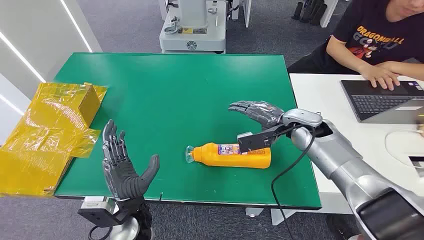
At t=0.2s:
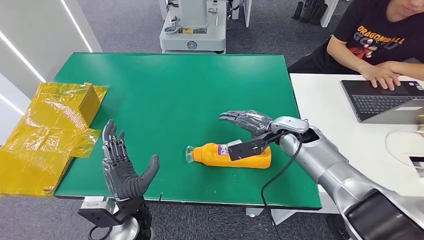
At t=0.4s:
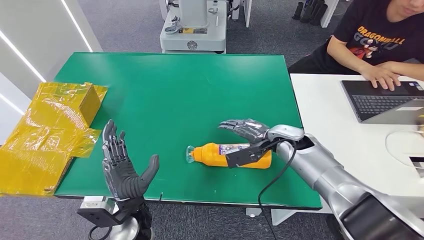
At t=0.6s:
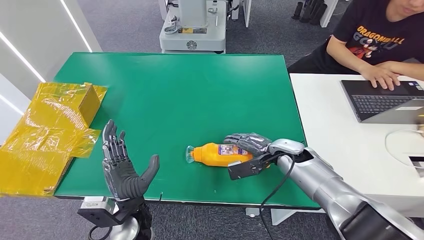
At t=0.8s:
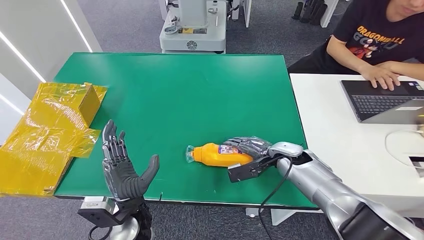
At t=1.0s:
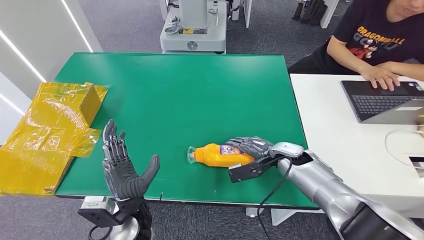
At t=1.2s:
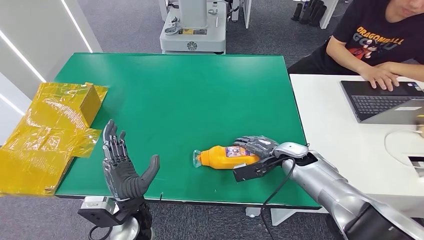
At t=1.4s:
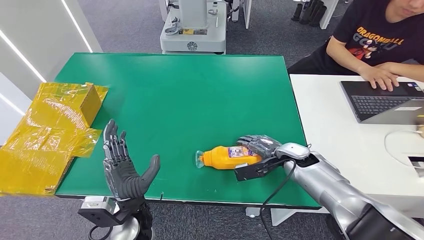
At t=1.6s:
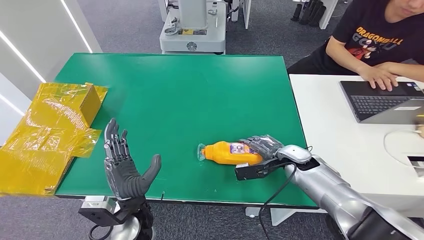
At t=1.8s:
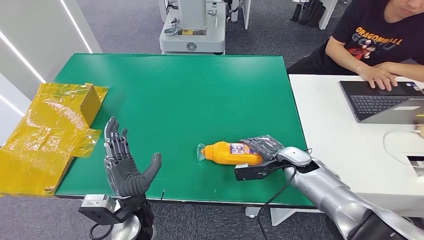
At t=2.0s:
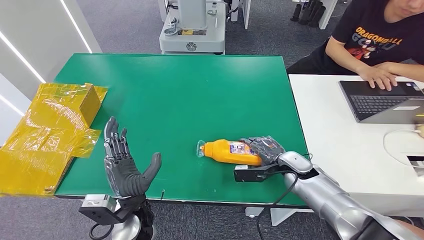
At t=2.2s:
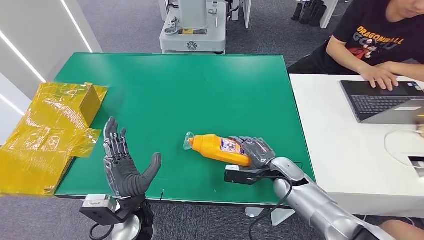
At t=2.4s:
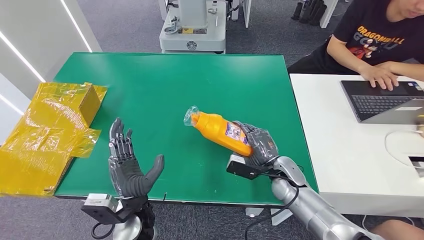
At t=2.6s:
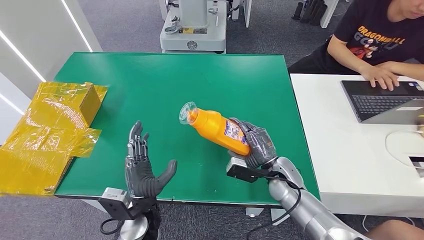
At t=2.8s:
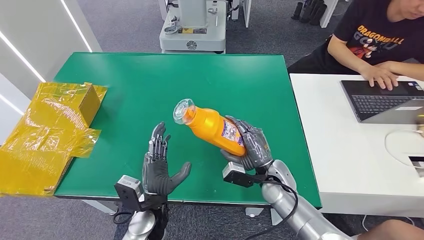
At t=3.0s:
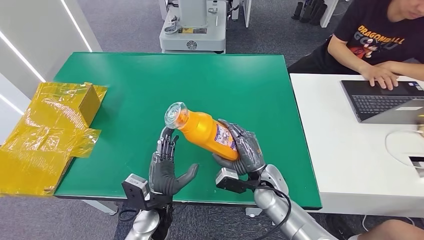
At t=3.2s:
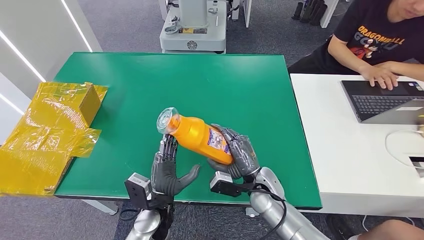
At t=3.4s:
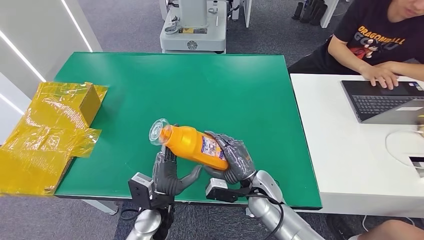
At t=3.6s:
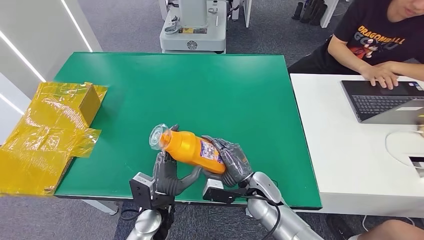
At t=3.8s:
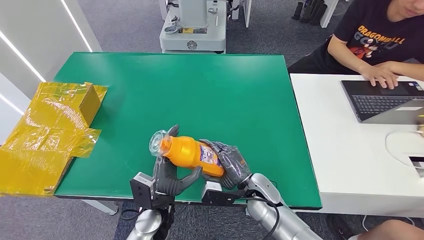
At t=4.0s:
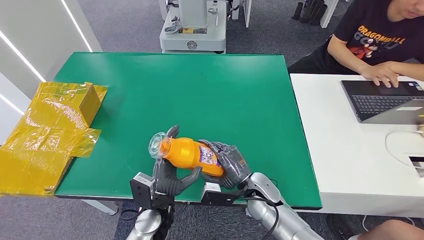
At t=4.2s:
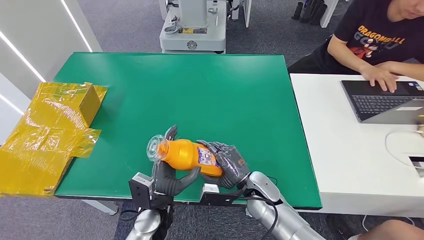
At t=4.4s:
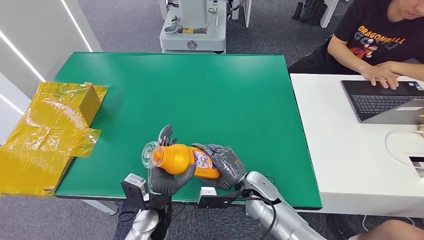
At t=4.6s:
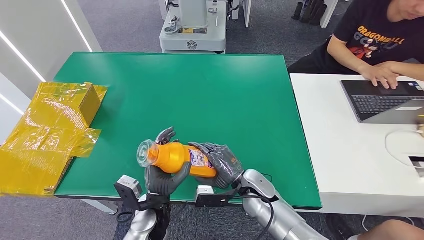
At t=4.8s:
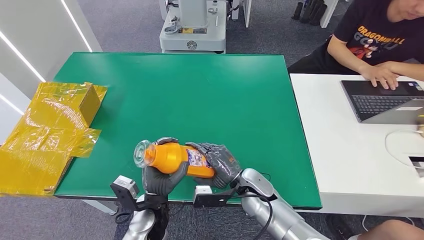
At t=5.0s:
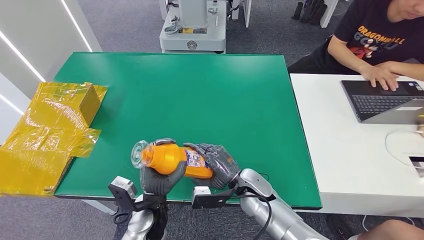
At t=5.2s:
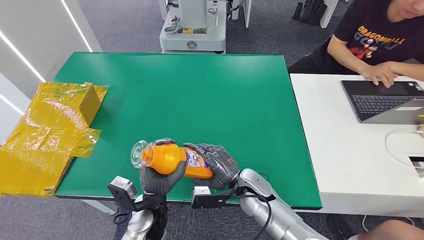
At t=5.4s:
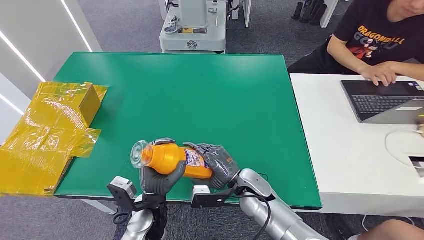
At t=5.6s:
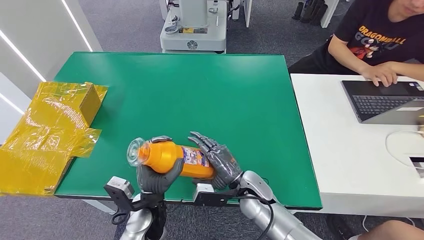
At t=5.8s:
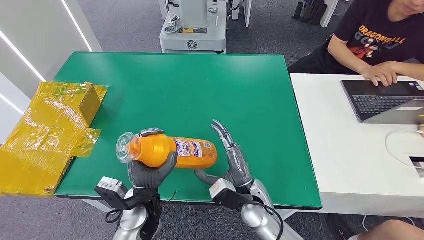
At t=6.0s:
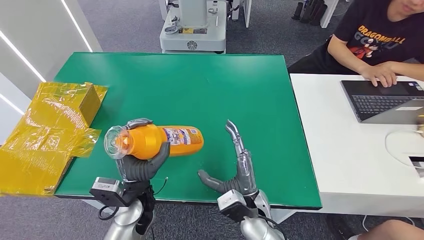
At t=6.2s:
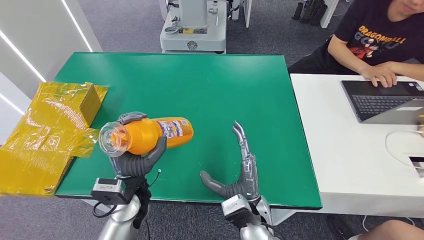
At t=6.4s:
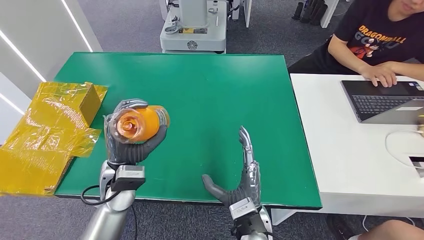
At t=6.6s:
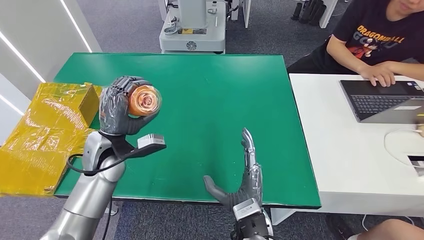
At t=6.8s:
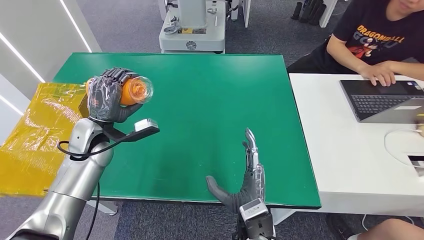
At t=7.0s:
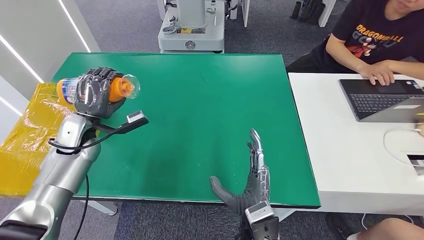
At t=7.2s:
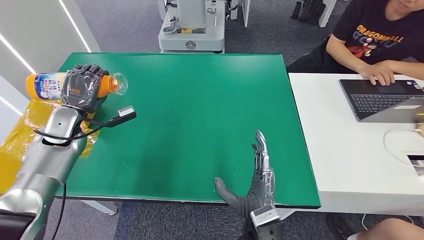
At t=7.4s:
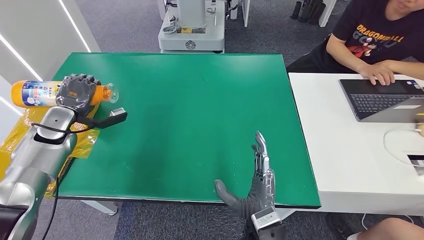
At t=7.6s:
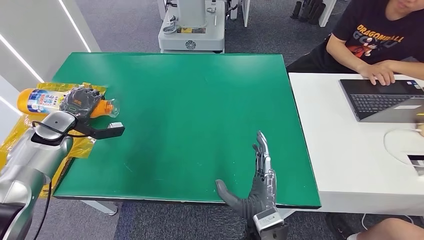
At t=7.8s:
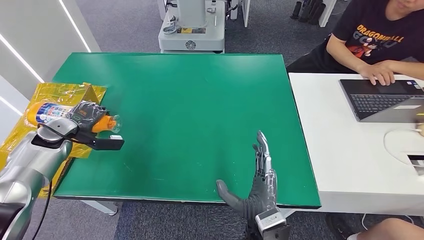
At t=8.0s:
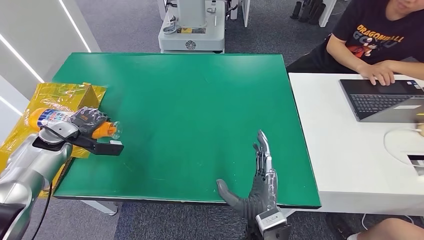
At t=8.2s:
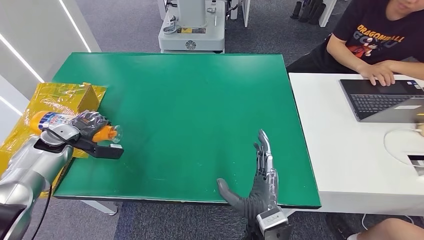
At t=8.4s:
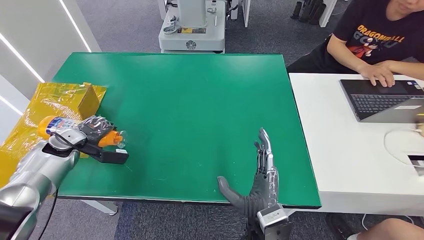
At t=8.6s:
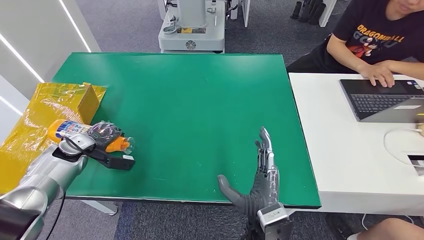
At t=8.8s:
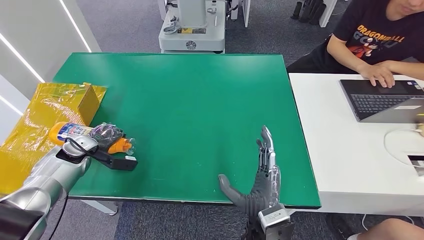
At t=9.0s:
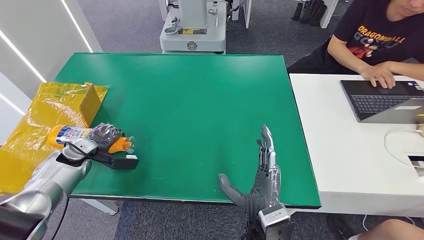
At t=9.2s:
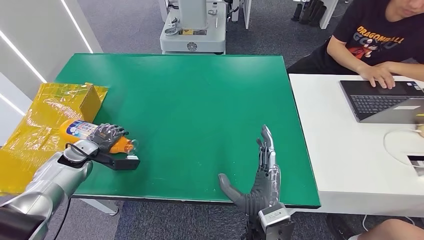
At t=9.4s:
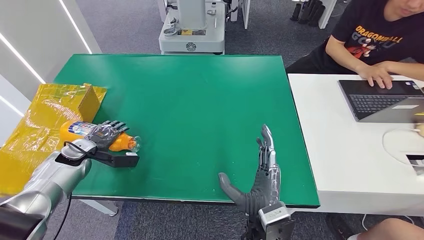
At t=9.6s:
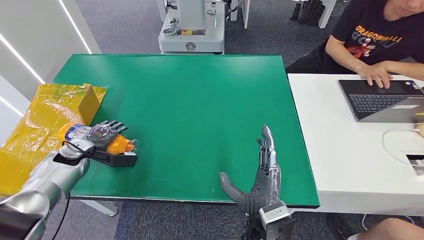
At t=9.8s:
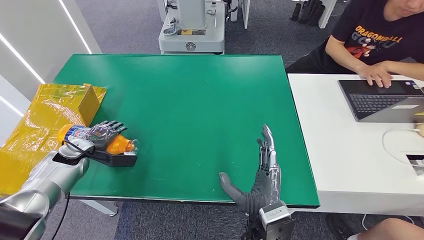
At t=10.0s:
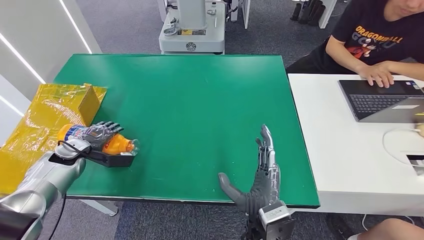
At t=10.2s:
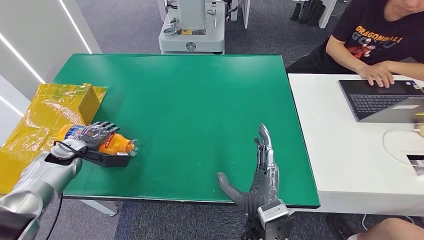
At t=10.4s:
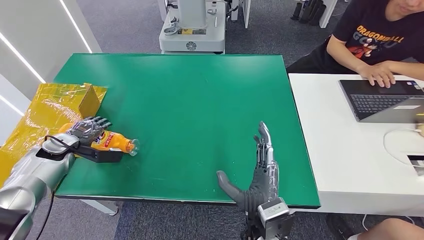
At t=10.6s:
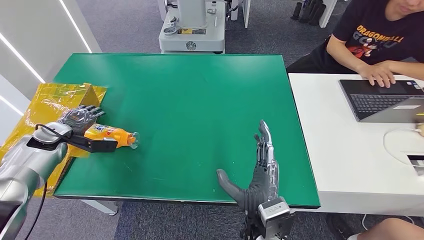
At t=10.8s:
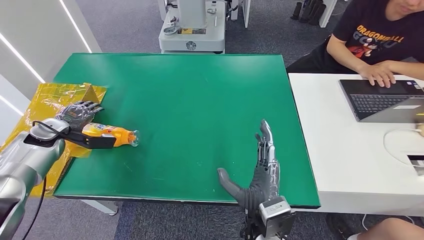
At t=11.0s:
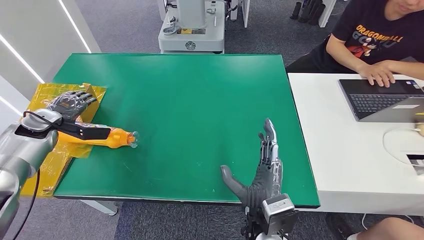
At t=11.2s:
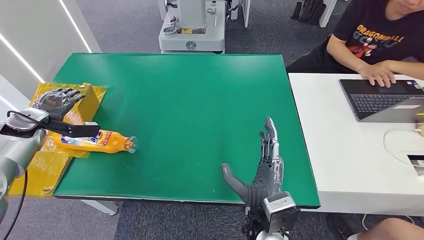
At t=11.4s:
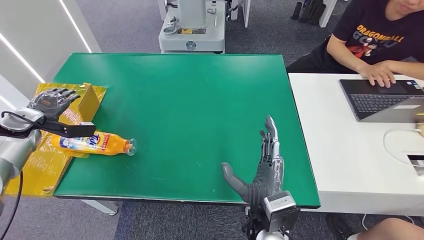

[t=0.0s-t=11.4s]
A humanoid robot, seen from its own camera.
Step, t=0.0s to t=3.2s: Pick up the bottle from the table.
Step, t=3.4s to t=11.4s: Turn the bottle to the front side.
t=1.4s to t=2.8s: The right hand heads to the left and backward, covering roughly 10 cm.
t=2.8s to t=4.2s: The right hand goes approximately 5 cm to the left.
t=4.2s to t=5.6s: There are only small adjustments of the hands.
t=7.2s to t=8.6s: The left hand is displaced downward by some 10 cm.
t=8.6s to t=10.0s: There are only small adjustments of the hands.
t=10.0s to t=11.4s: The left hand travels upward and to the left by roughly 15 cm.

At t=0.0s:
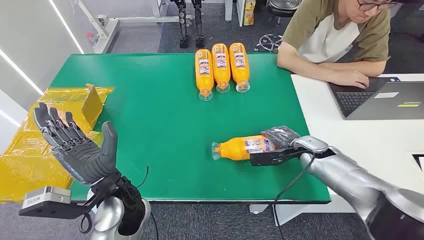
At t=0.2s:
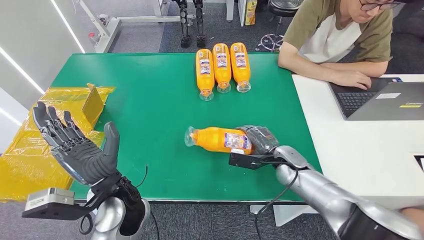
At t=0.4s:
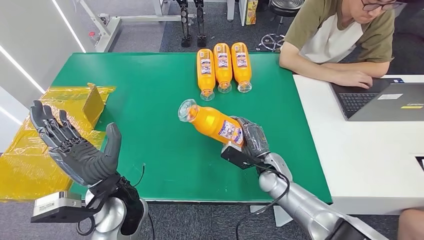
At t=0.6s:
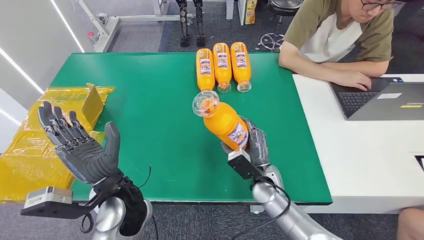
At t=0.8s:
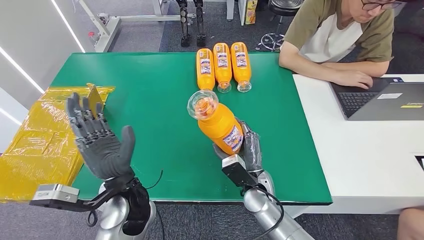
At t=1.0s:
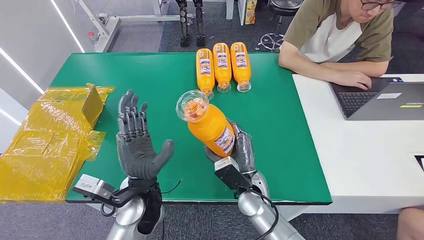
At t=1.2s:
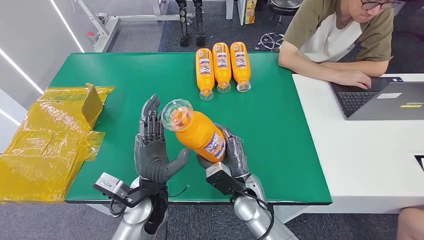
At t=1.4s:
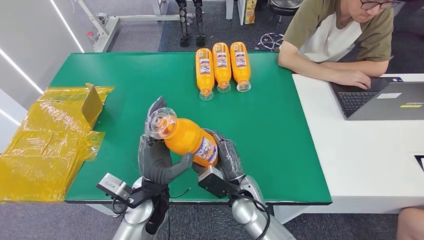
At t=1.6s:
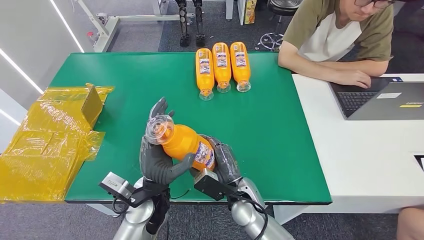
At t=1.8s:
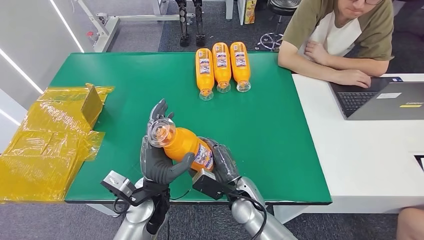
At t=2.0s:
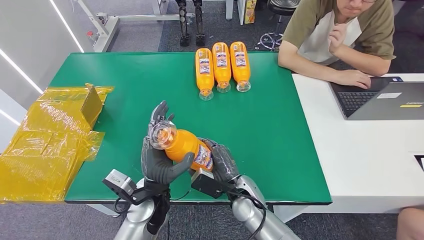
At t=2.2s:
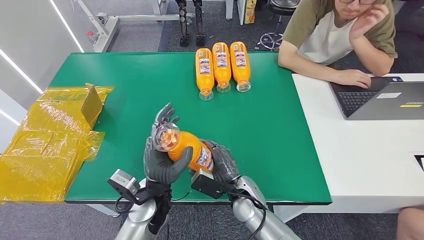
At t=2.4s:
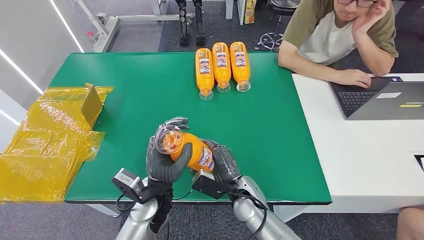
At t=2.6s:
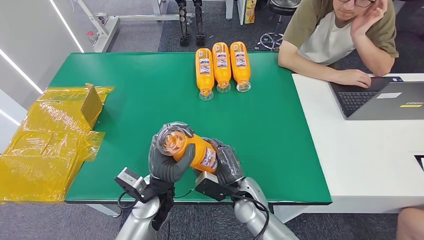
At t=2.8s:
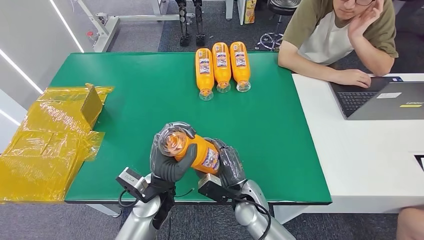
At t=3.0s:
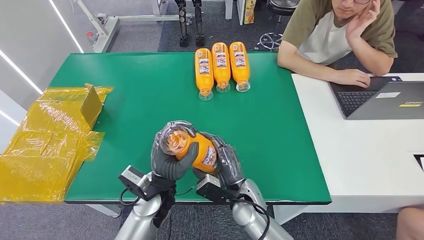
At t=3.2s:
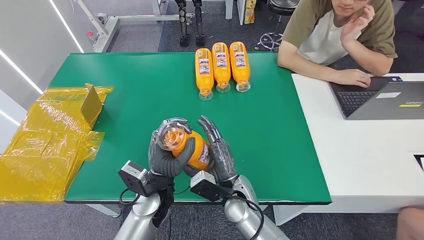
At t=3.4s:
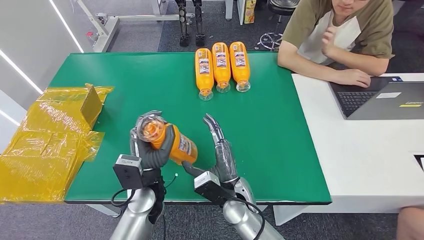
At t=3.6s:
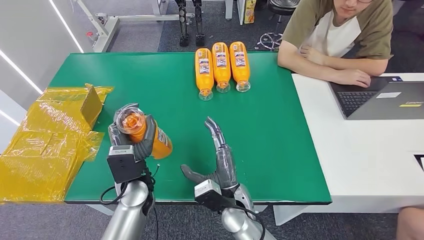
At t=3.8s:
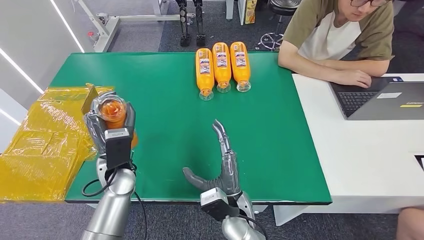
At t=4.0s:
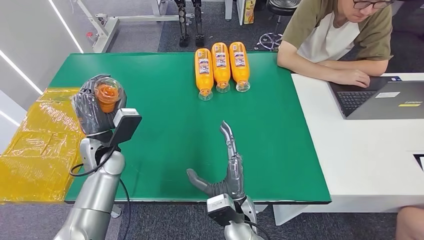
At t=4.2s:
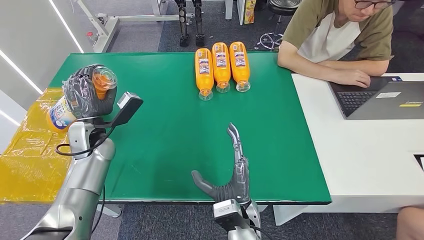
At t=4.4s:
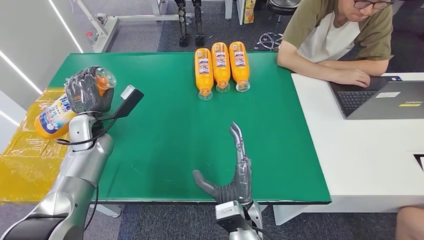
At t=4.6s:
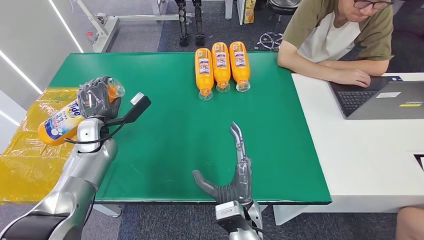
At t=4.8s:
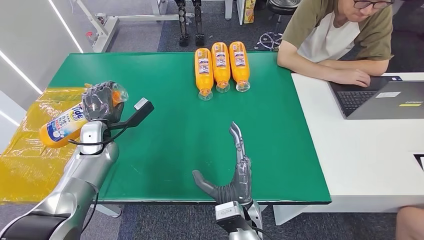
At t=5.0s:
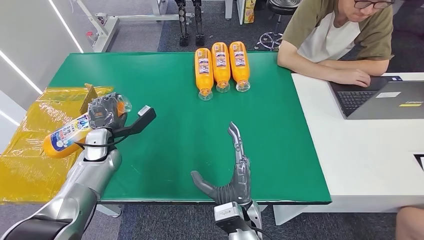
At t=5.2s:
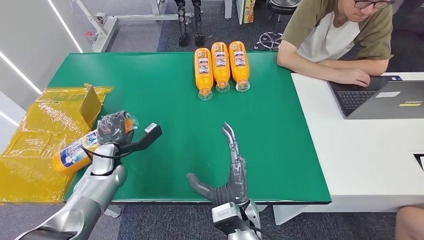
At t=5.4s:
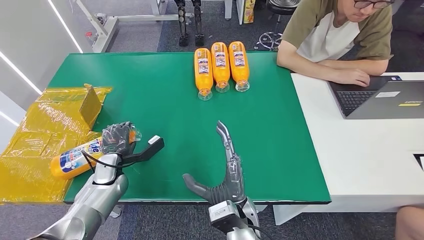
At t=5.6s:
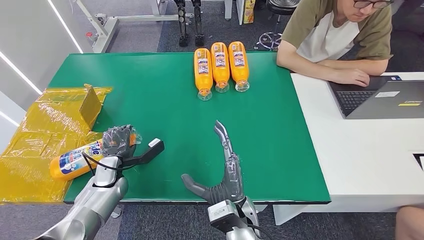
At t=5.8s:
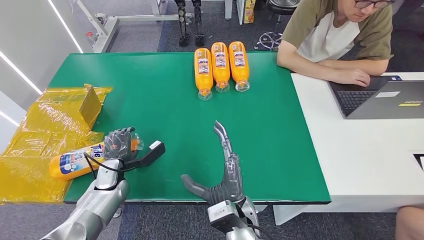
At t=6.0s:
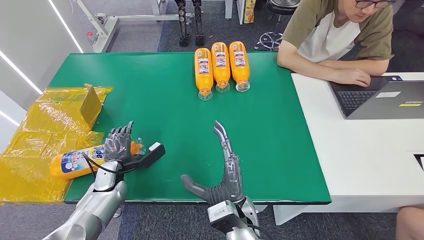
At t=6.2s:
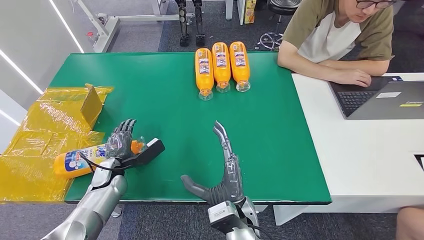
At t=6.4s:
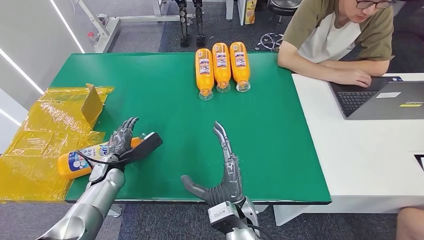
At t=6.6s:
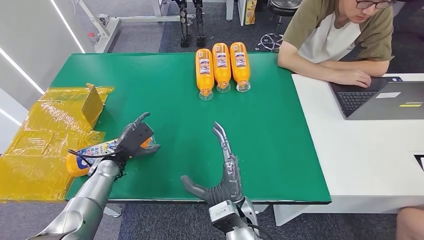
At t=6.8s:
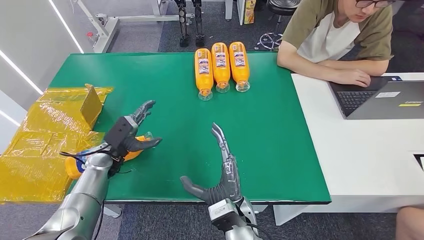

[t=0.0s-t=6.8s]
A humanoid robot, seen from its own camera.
Step, t=0.0s to t=2.6s: Pick up the bottle from the table.
Step, t=2.8s to t=6.8s: Turn the bottle to the front side.
t=1.4s to t=2.8s: The hands stay close to where they were, moving slightly.
t=2.8s to t=4.0s: The left hand heads to the left and forward, covering about 20 cm. The right hand is displaced backward by approximately 5 cm.
t=4.0s to t=5.4s: The left hand heads downward and to the left, covering some 10 cm.
